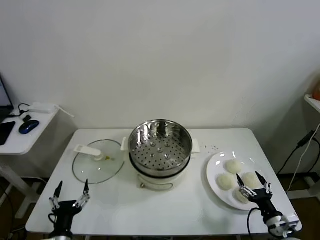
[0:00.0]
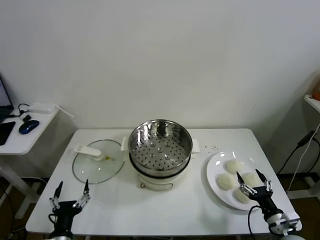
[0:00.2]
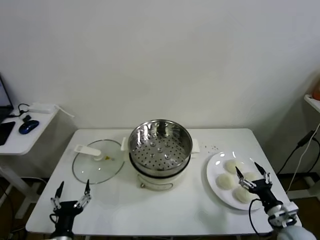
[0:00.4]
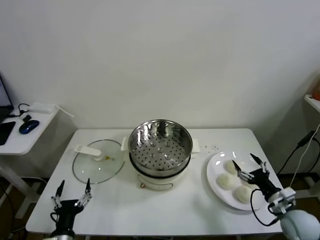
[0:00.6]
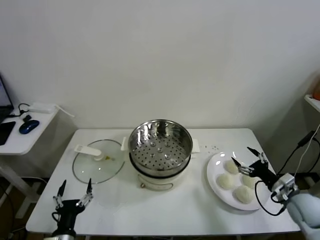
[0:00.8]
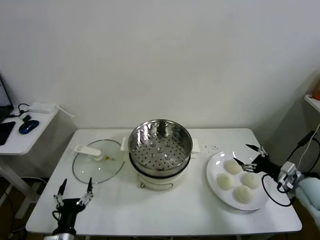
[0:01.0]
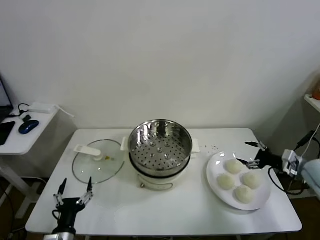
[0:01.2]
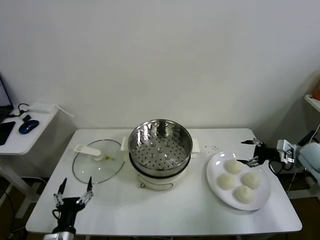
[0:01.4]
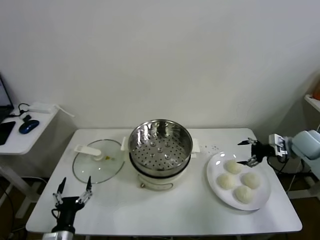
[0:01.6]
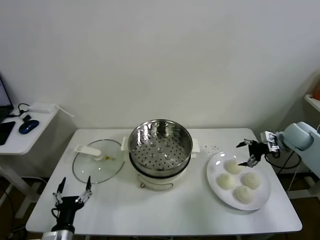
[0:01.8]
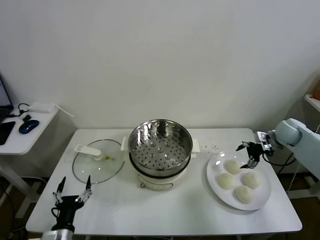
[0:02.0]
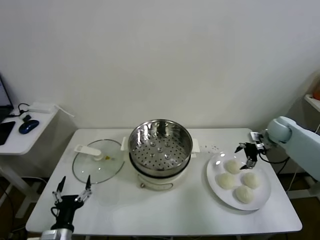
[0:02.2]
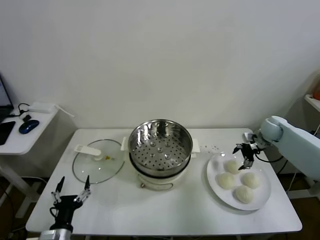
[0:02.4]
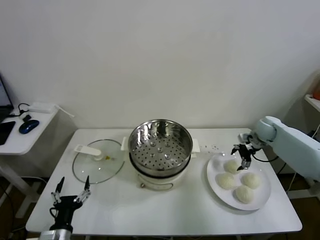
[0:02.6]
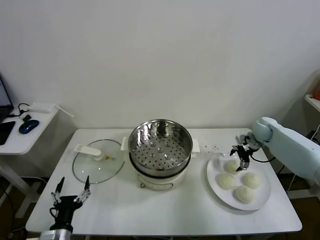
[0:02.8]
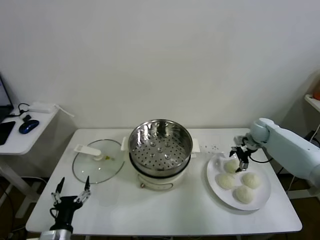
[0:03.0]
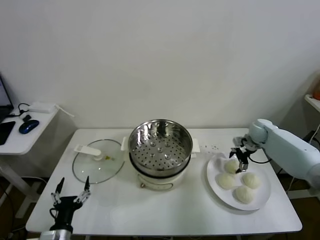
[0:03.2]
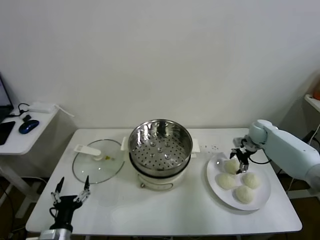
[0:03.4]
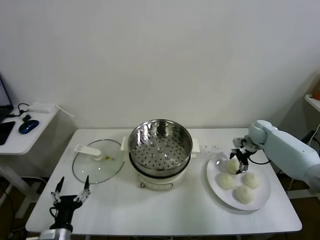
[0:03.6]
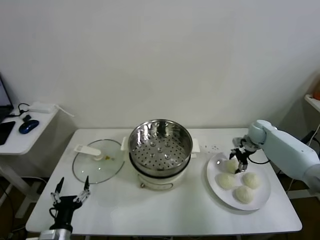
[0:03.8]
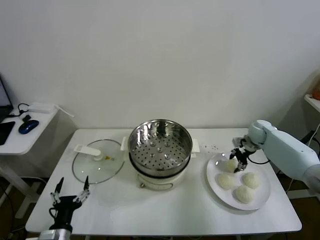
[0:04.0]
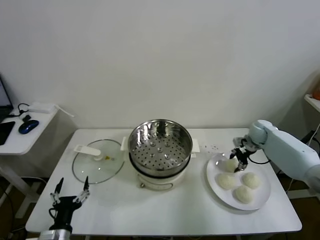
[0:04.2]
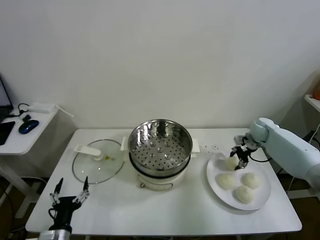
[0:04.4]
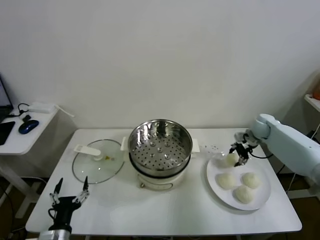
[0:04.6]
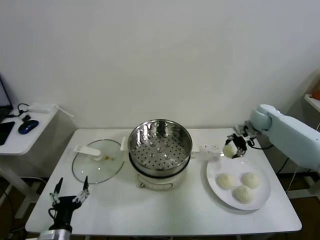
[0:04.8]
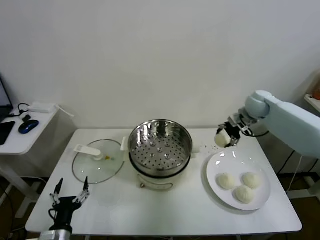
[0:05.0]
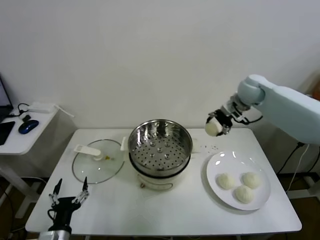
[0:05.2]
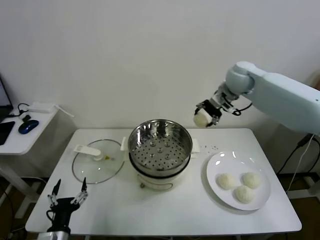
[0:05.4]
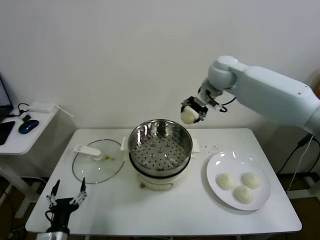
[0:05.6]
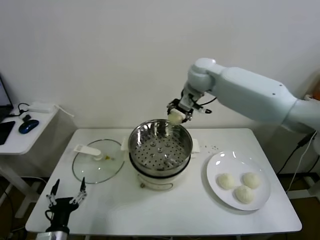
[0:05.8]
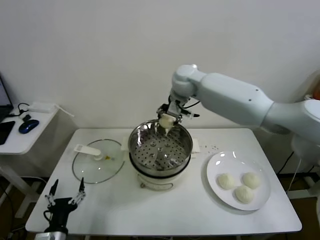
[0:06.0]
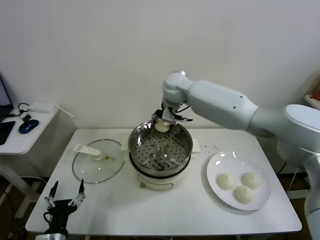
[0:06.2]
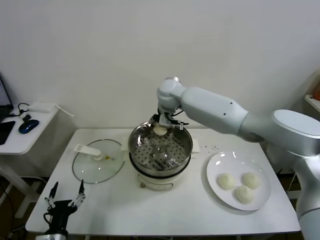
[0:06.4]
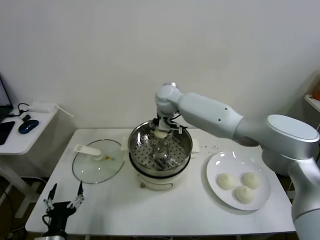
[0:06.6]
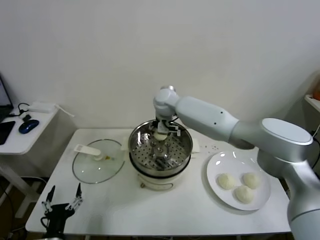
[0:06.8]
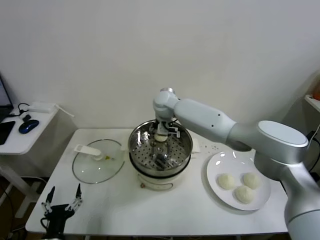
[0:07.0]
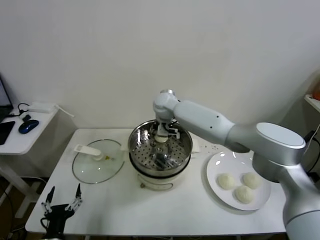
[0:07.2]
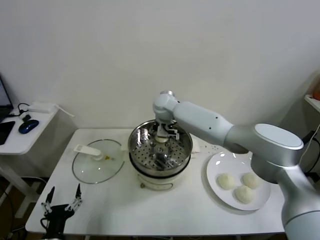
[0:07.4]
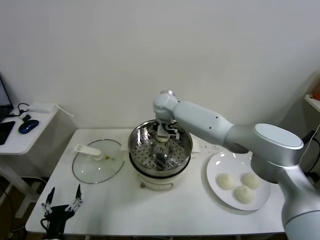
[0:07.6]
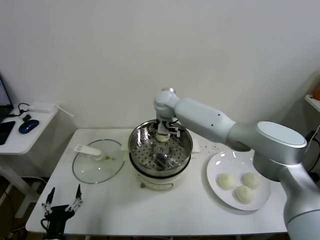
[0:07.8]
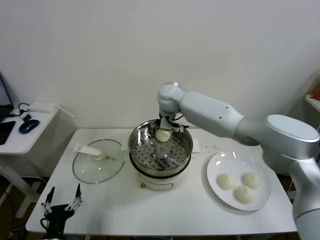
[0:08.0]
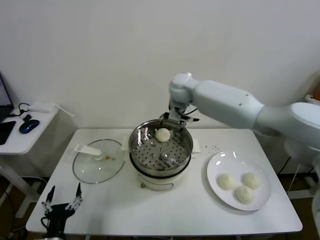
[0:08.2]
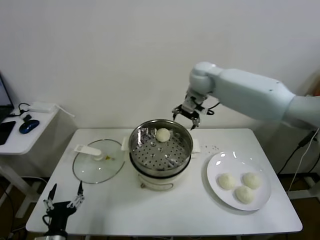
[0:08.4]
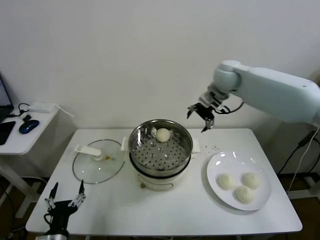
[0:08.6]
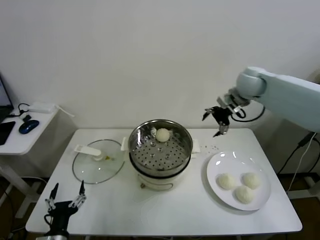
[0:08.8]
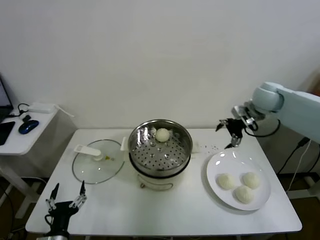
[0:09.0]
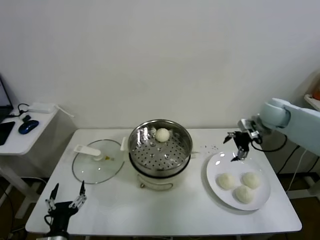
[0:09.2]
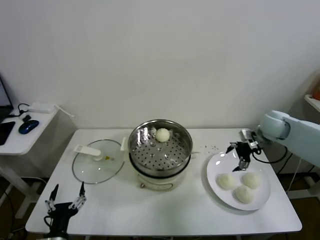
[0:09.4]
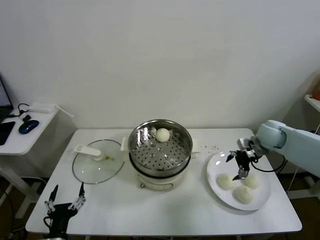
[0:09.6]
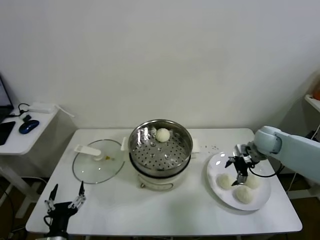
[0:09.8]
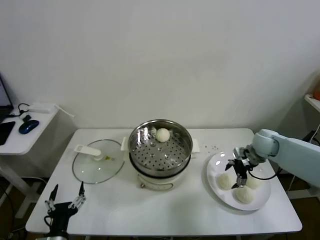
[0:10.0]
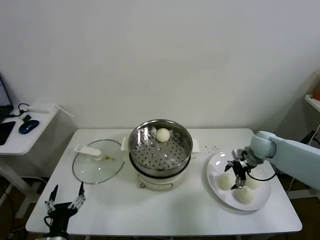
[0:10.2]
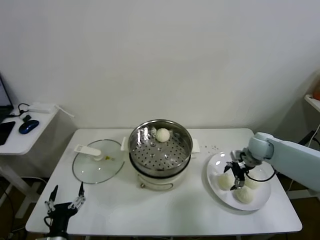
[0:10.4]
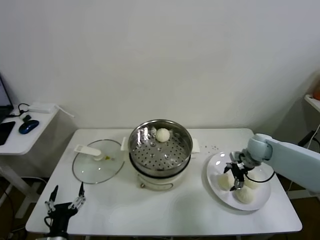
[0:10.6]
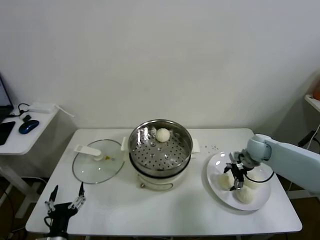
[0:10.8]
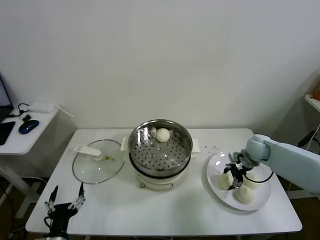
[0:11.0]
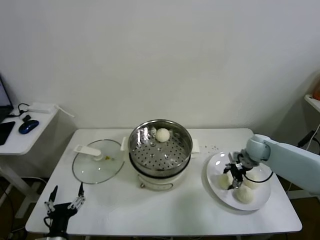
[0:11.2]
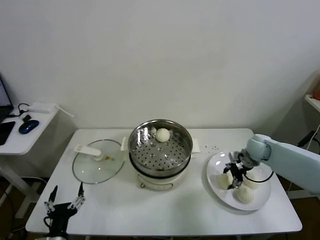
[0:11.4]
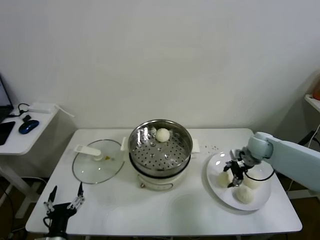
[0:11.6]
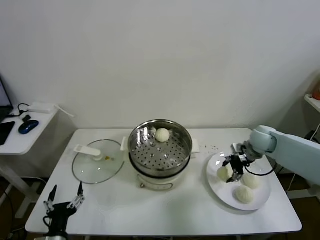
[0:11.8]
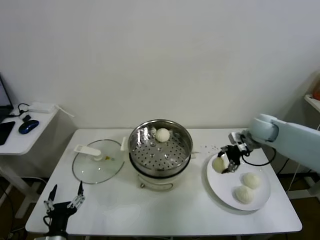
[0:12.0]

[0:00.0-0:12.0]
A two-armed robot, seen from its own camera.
Task of the whole recording: take steamed baozi put them in steamer.
Step, 0:00.0 to 0:04.0: Grasp the baozi in the plate with right gripper.
Step, 0:04.4 to 0:07.8: Place the baozi on the steamer with right gripper.
Step, 0:08.0 to 0:11.2: Grasp the baozi in the plate with right gripper.
0:01.6 to 0:03.0: The right gripper goes about 15 cm forward, to the left and downward.
0:03.0 to 0:04.4: The right gripper closes up.
0:04.4 to 0:06.0: The right gripper is displaced to the left and upward by about 40 cm.
0:06.0 to 0:07.6: The right gripper goes some 10 cm downward, and opens its fingers.
0:07.6 to 0:09.0: The right gripper heads to the right, covering roughly 35 cm.
0:09.0 to 0:10.4: The right gripper moves downward, about 15 cm.
0:10.4 to 0:12.0: The right gripper is displaced upward by roughly 10 cm, and closes its fingers.

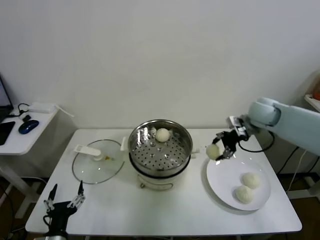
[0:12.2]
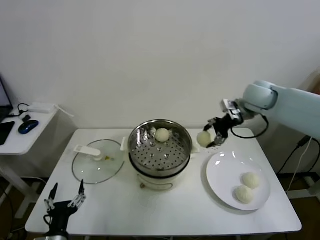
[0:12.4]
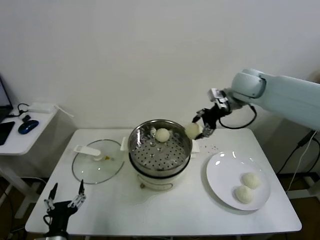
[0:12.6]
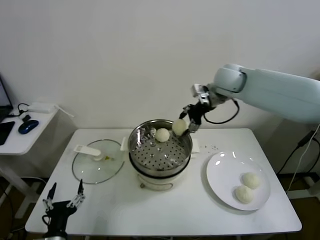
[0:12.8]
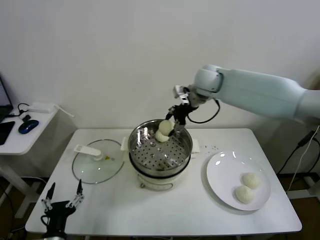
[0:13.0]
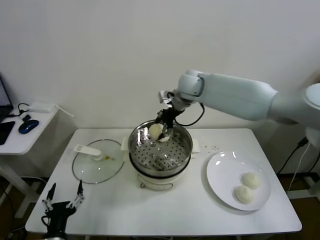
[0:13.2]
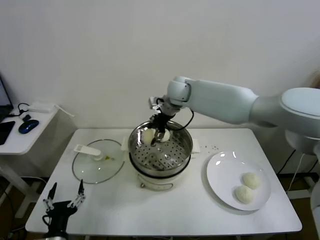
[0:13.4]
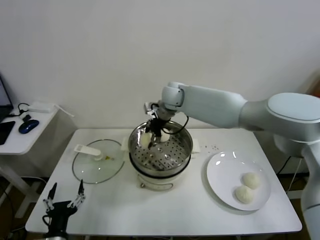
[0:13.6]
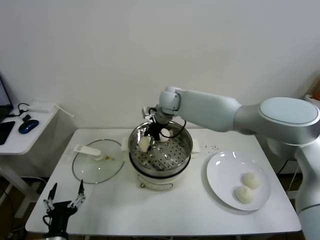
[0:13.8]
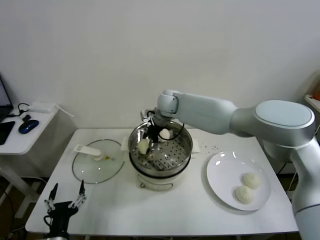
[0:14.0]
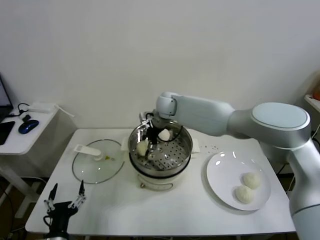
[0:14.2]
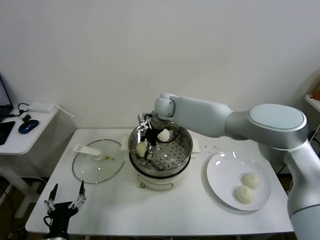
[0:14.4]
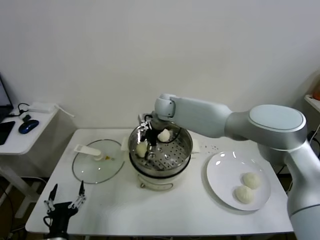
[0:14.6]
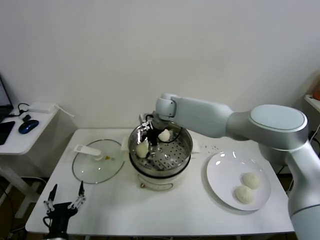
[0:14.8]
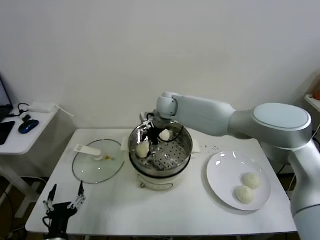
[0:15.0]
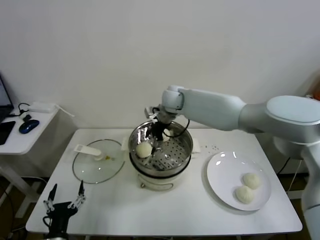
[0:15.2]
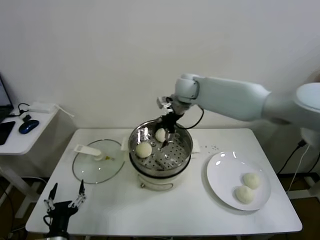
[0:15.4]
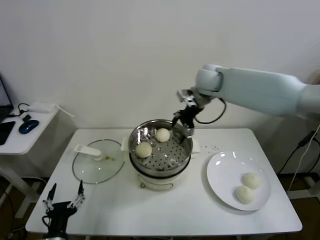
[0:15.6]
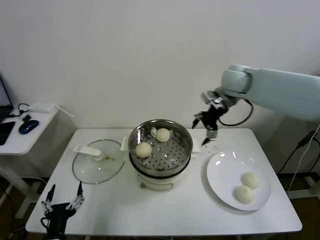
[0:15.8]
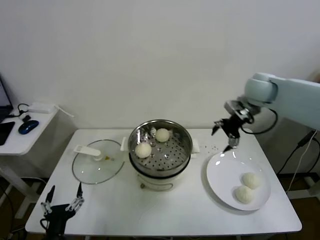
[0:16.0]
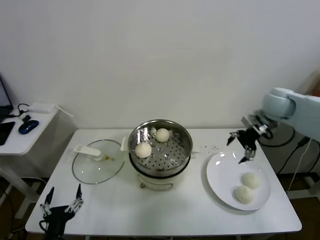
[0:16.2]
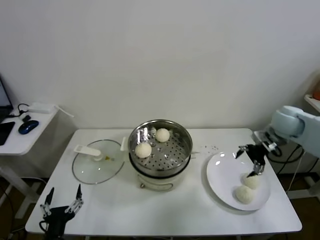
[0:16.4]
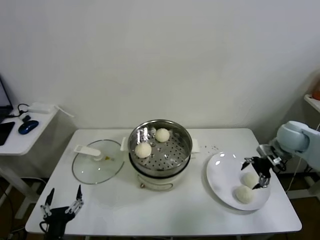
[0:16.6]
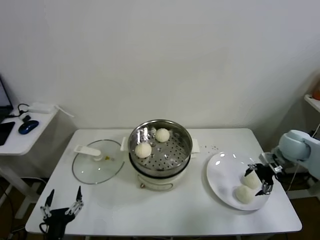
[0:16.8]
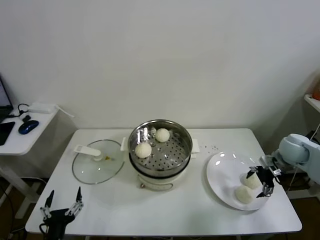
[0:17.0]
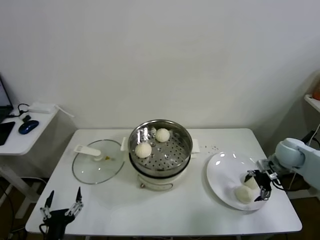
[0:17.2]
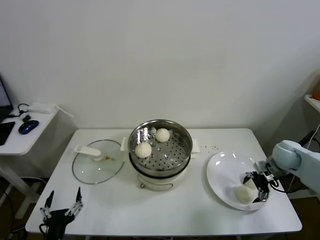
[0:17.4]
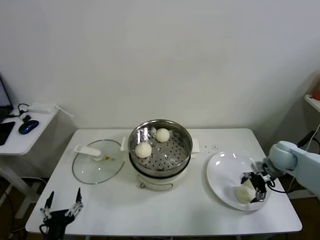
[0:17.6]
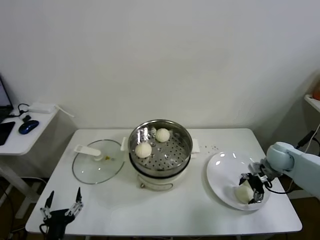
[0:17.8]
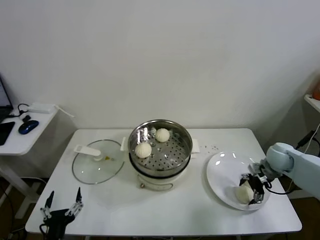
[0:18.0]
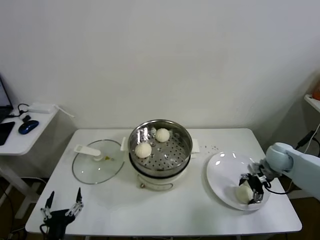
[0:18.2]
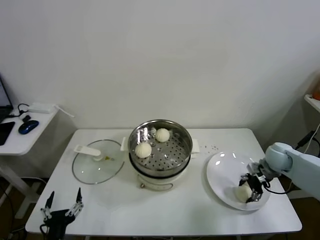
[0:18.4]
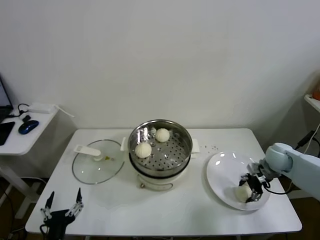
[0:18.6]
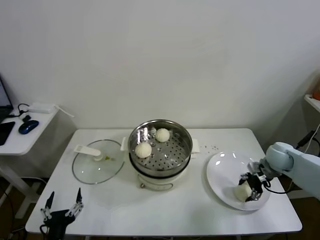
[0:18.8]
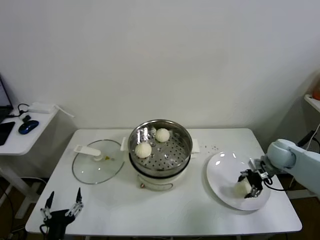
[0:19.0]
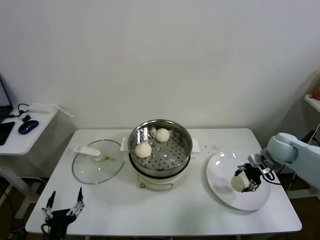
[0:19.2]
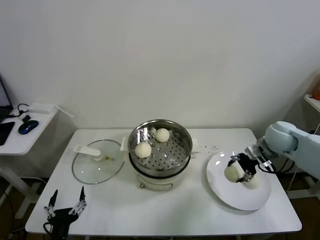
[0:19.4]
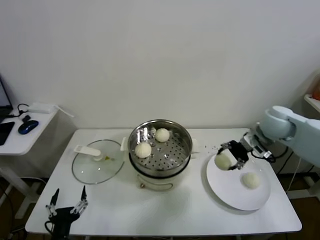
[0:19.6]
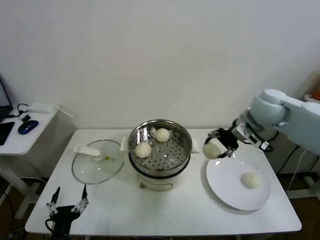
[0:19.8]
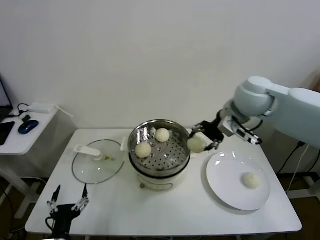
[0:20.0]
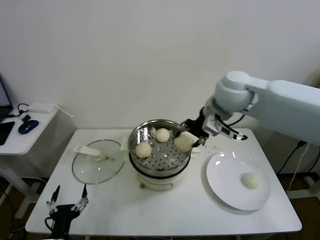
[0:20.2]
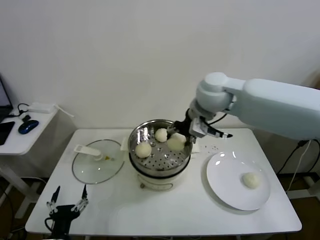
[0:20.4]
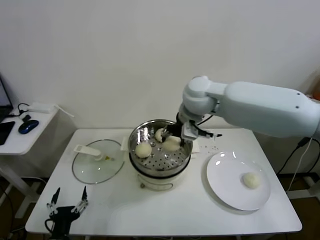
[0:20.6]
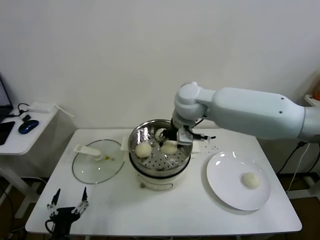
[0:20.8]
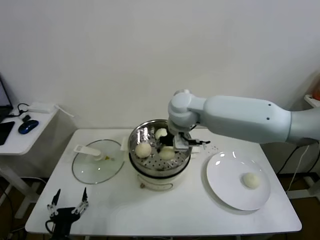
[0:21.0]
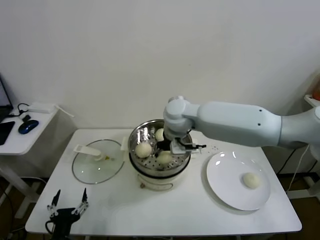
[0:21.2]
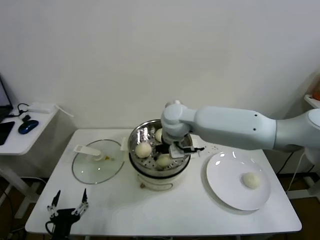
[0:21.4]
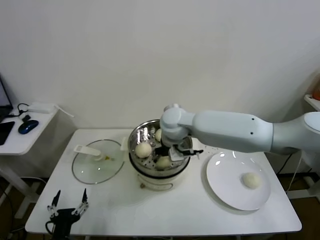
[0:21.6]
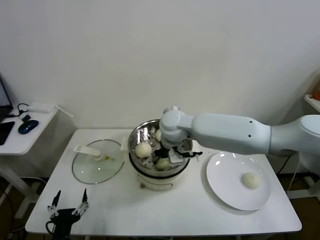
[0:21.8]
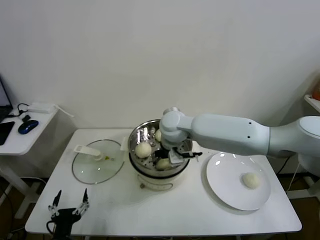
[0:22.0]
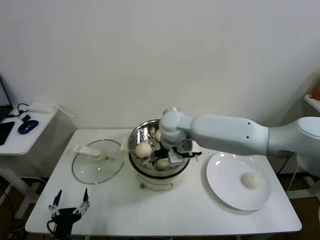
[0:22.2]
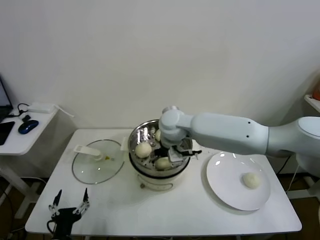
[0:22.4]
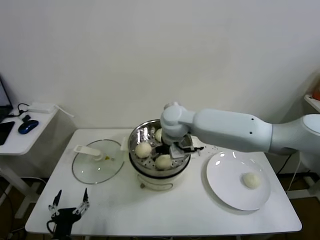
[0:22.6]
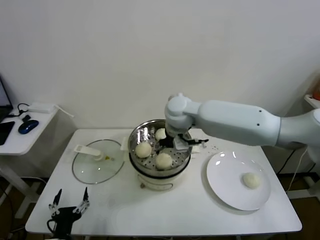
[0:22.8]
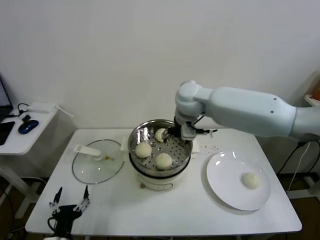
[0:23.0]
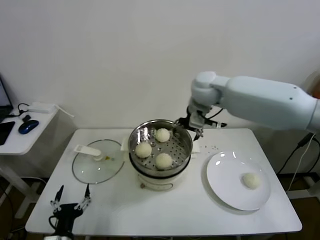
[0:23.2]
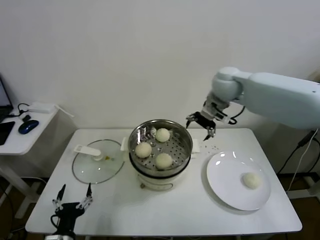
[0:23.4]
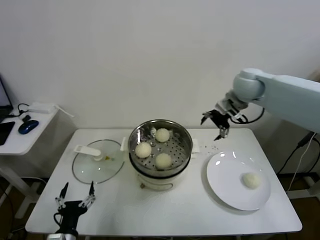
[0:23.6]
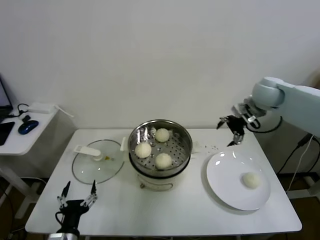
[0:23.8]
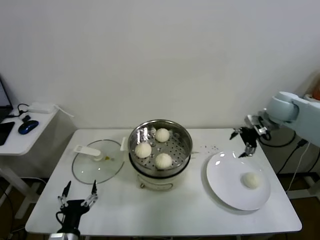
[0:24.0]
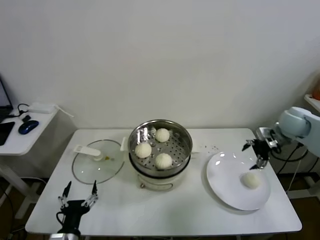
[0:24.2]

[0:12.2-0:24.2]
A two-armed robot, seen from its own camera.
Task of the whole recording: take steamed baozi put them in steamer.
Step, 0:12.2 to 0:14.8: Place the baozi on the steamer with right gripper.
Step, 0:15.2 to 0:18.4: Grasp the baozi in the plate with right gripper.
Step, 0:18.6 to 0:22.4: Place the baozi on the steamer with right gripper.
0:12.2 to 0:13.8: The right gripper goes some 30 cm to the left.
0:13.8 to 0:15.2: The right gripper opens.
0:15.2 to 0:16.6: The right gripper travels to the right by approximately 40 cm.
0:16.6 to 0:18.2: The right gripper travels downward by some 10 cm.
0:18.2 to 0:19.8: The right gripper moves upward and to the left, some 25 cm, and closes its fingers.
0:19.8 to 0:21.2: The right gripper travels to the left by roughly 25 cm.
0:21.2 to 0:22.6: The right gripper opens its fingers.
0:22.6 to 0:24.2: The right gripper goes about 40 cm to the right.